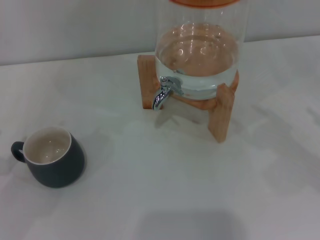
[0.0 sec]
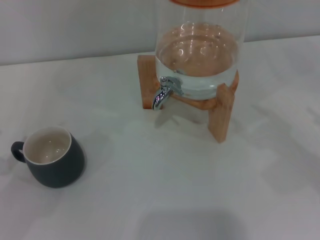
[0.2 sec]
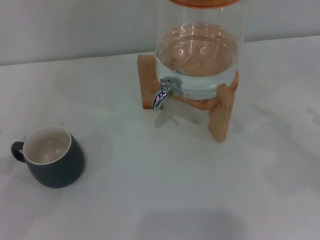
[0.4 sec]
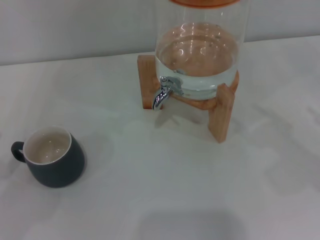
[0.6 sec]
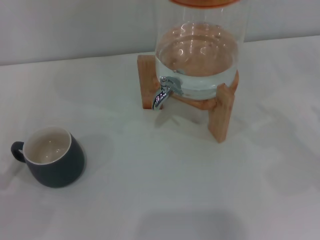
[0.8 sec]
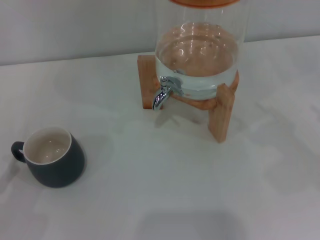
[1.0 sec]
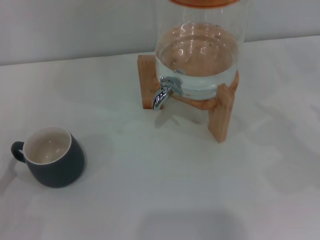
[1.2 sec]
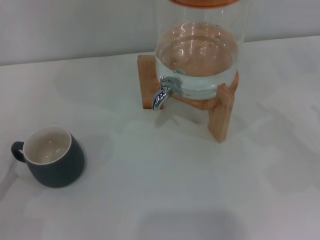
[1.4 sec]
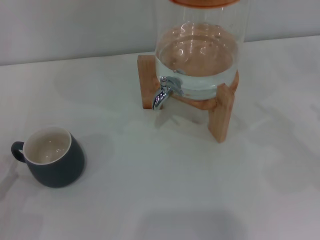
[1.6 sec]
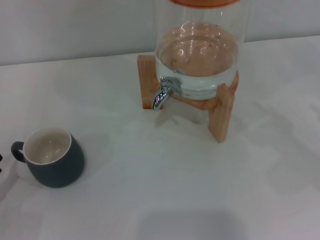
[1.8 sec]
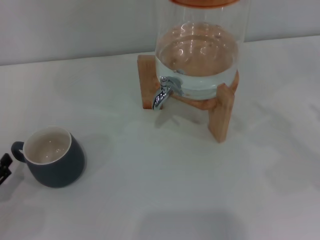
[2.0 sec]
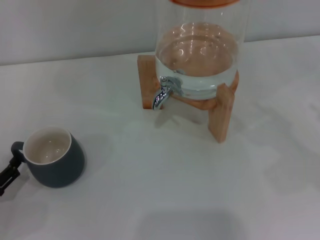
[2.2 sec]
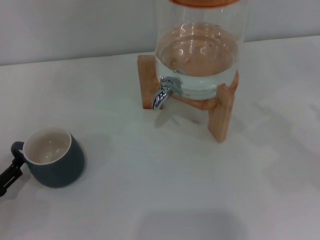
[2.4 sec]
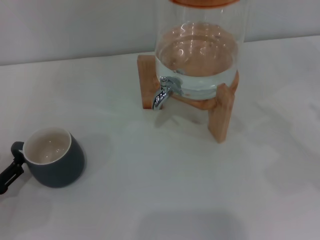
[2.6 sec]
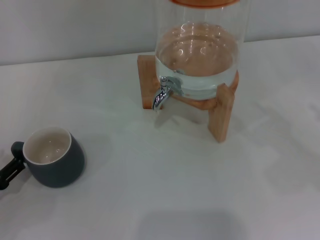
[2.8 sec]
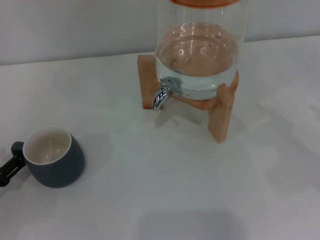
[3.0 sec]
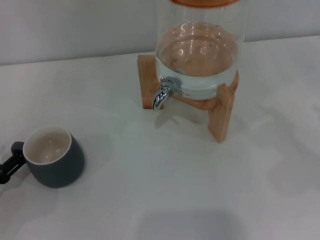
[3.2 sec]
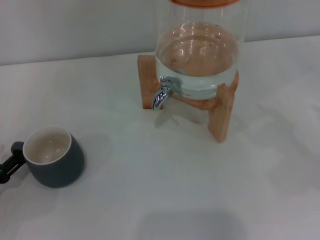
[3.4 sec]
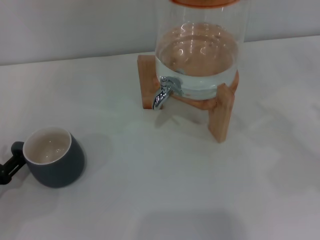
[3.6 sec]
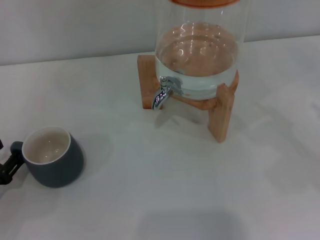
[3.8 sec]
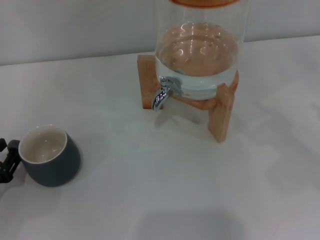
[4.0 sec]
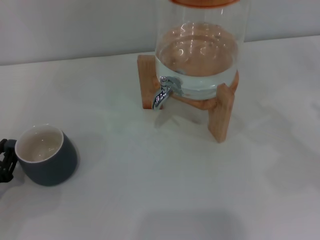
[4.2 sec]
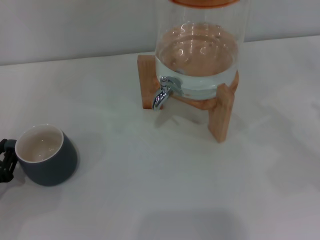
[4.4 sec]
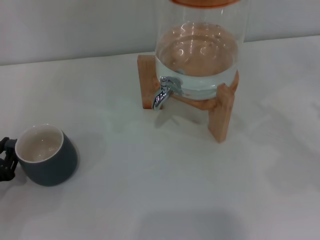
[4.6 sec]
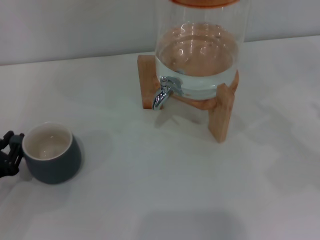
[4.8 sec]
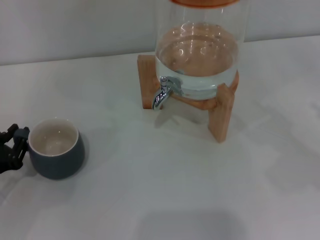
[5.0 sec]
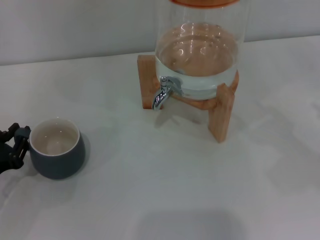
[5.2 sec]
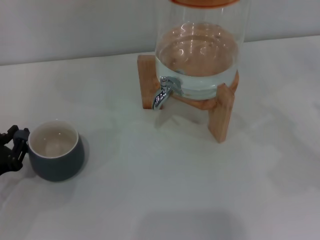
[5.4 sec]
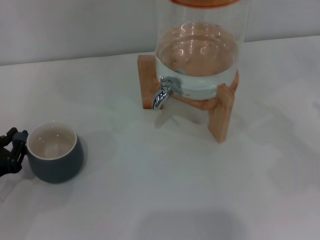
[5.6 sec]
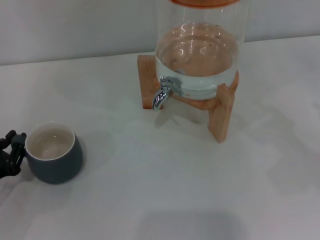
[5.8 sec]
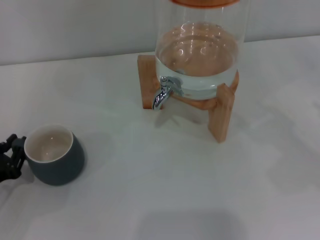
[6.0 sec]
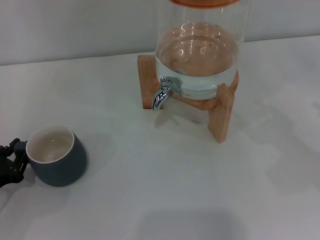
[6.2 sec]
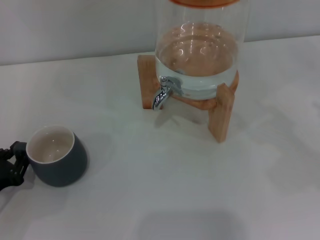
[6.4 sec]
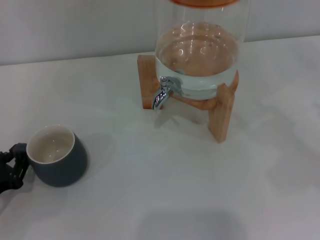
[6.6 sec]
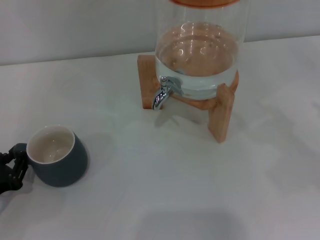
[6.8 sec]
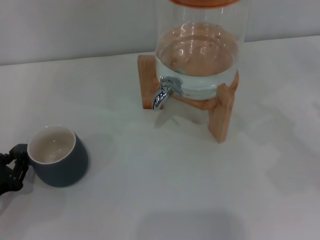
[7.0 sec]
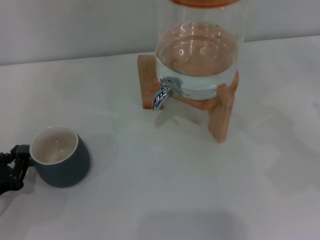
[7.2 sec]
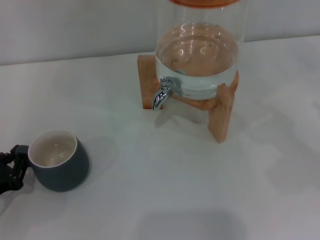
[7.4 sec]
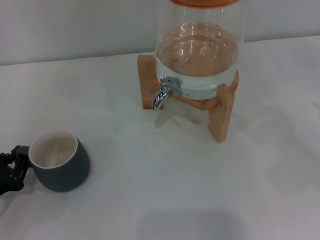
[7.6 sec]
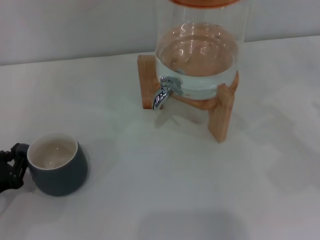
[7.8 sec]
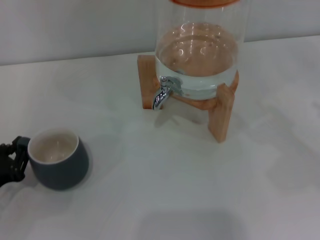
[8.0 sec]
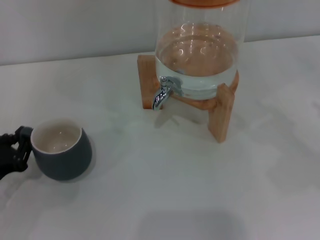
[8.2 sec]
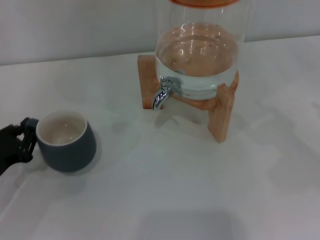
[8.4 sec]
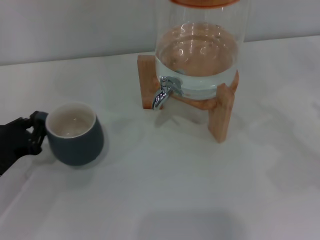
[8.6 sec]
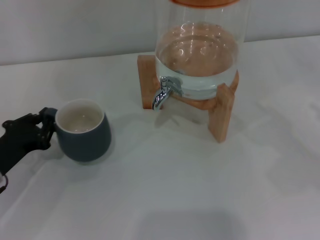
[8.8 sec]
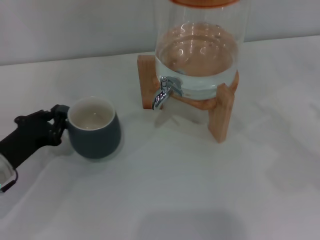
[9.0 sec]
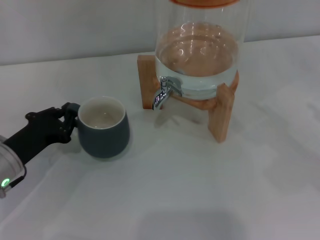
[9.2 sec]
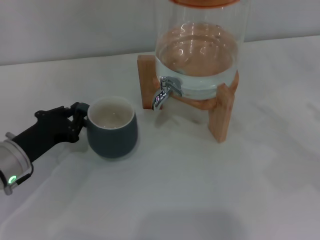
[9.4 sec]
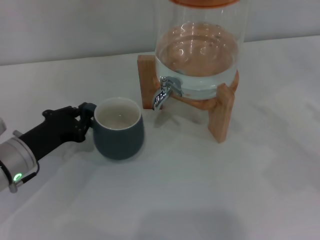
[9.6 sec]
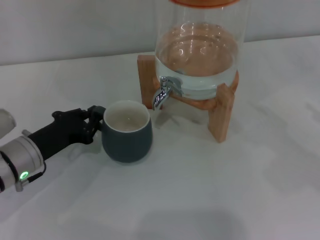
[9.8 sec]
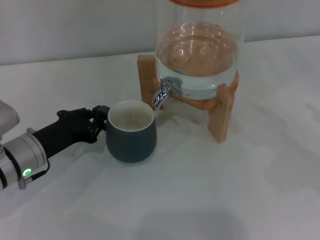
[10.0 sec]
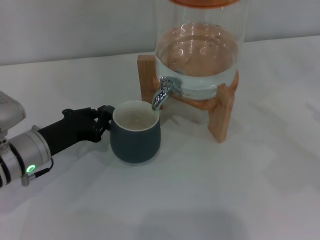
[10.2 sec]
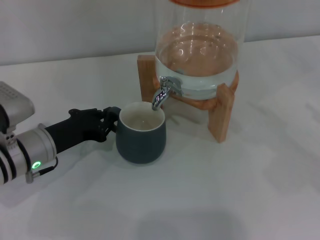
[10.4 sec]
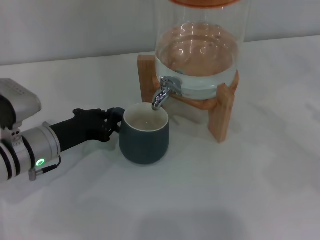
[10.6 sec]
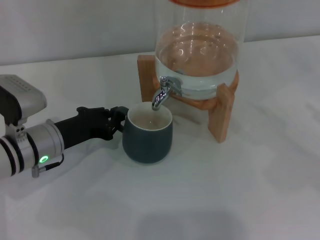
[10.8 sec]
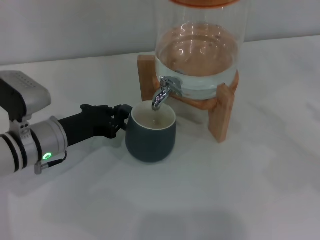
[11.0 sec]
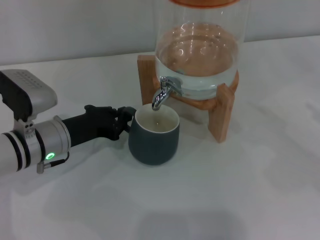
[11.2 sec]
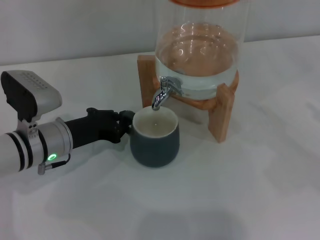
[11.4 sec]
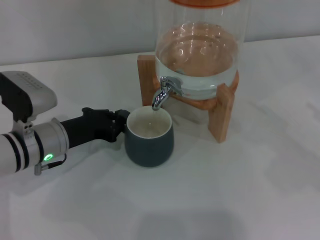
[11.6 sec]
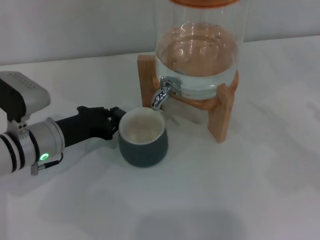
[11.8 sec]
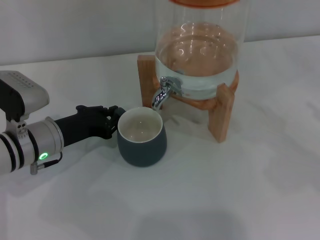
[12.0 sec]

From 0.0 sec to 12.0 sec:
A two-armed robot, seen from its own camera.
Task of the whole recording: the left gripper pick up the black cup and place it horizontally under the faucet, the right gripper turn on the faucet to fill the cup, and then turn off the faucet.
From 3.0 sec to 4.4 sec: The left gripper closes.
From 4.4 sec to 7.6 sec: The grippers move only a little.
From 7.6 sec to 9.0 sec: The left gripper heads forward and to the right, covering some 10 cm.
From 9.0 sec to 10.4 sec: The left gripper goes approximately 5 cm to the right.
From 10.4 sec to 12.0 sec: The grippers make only small movements.

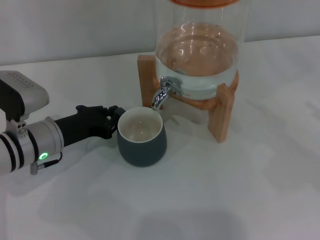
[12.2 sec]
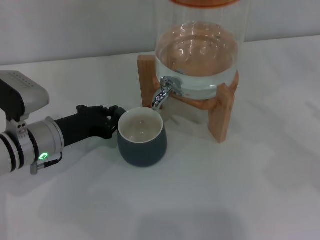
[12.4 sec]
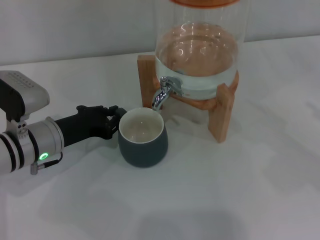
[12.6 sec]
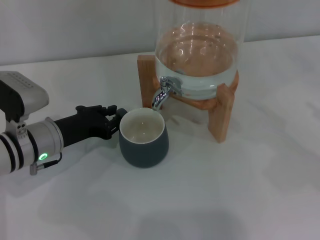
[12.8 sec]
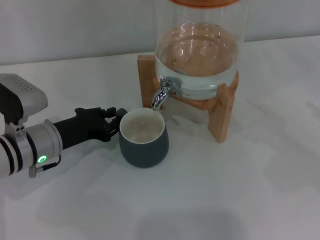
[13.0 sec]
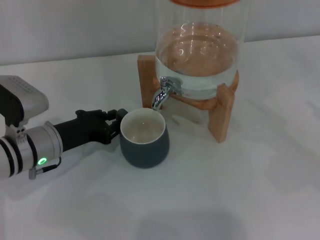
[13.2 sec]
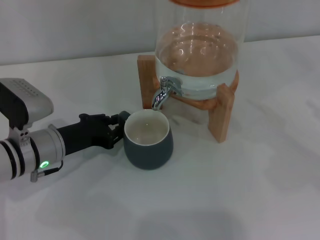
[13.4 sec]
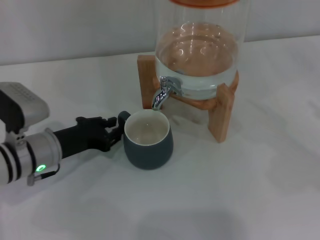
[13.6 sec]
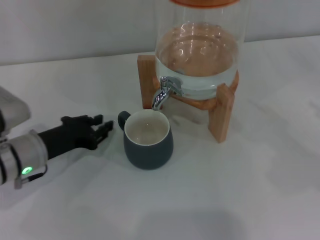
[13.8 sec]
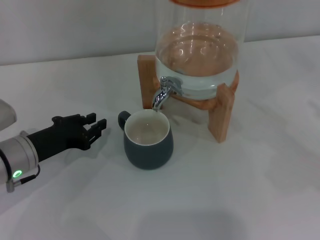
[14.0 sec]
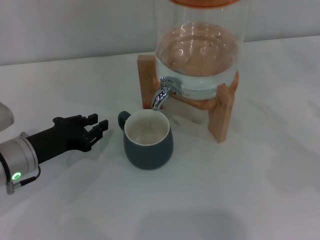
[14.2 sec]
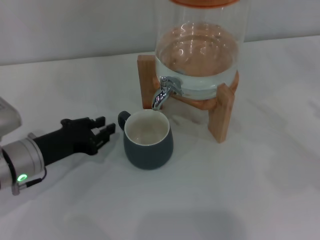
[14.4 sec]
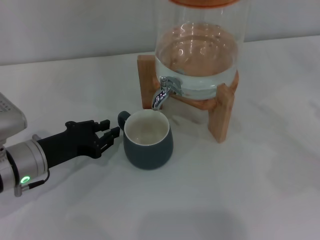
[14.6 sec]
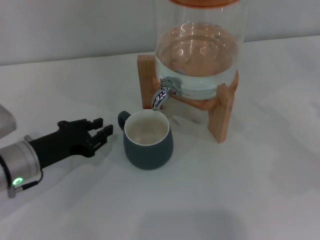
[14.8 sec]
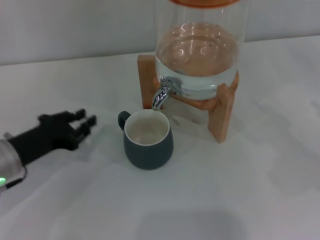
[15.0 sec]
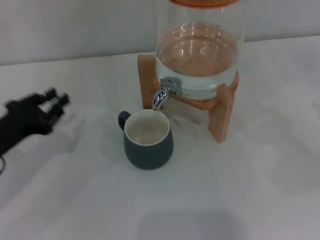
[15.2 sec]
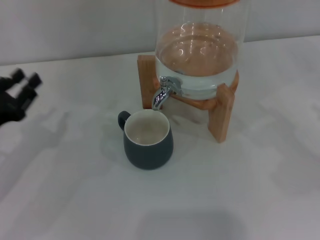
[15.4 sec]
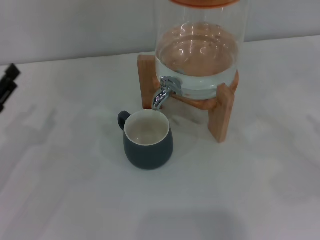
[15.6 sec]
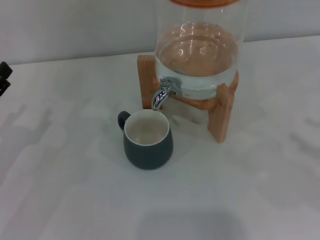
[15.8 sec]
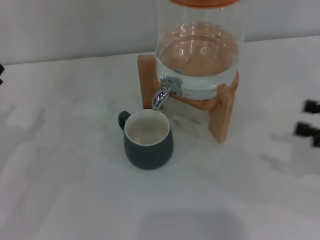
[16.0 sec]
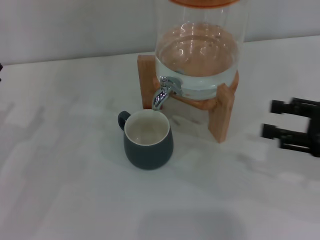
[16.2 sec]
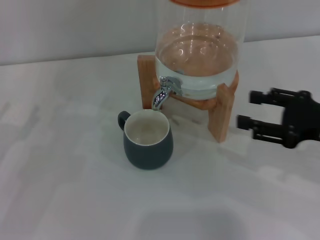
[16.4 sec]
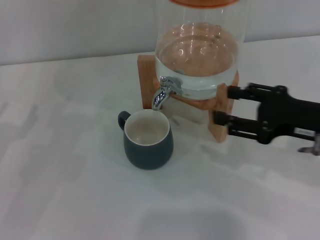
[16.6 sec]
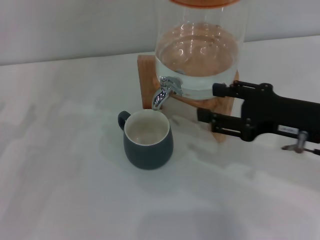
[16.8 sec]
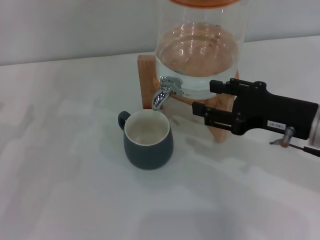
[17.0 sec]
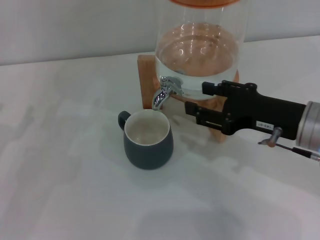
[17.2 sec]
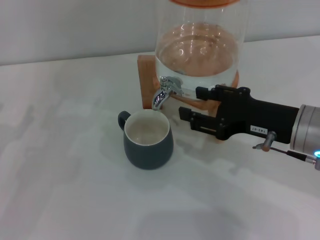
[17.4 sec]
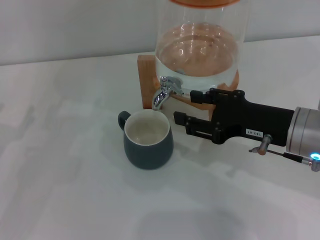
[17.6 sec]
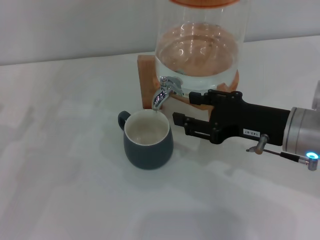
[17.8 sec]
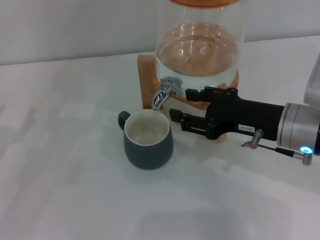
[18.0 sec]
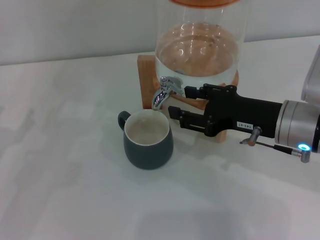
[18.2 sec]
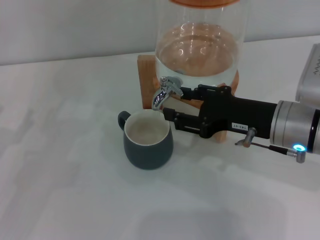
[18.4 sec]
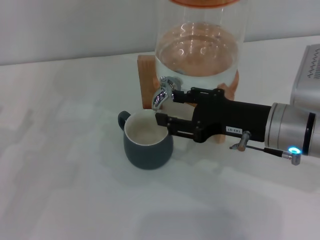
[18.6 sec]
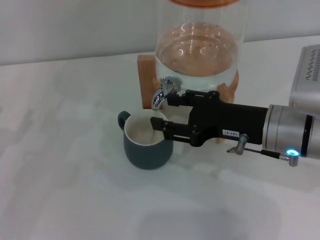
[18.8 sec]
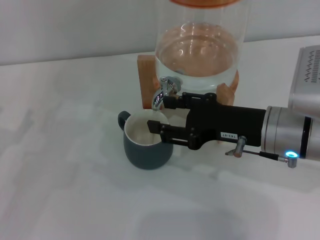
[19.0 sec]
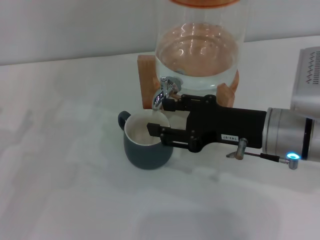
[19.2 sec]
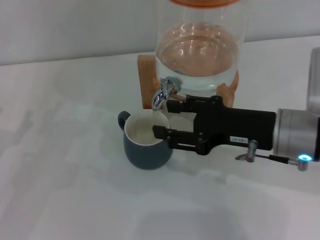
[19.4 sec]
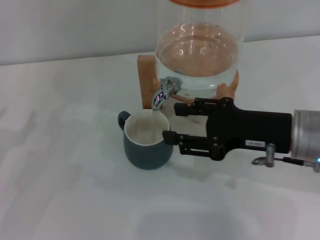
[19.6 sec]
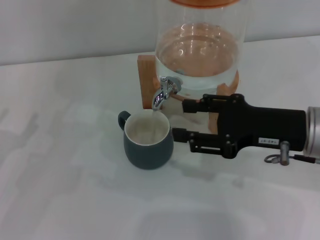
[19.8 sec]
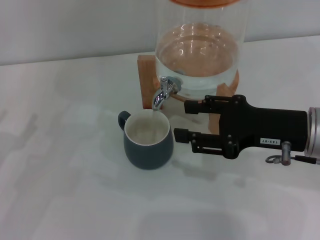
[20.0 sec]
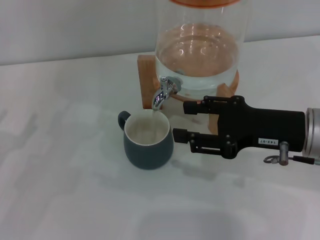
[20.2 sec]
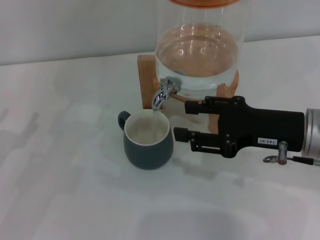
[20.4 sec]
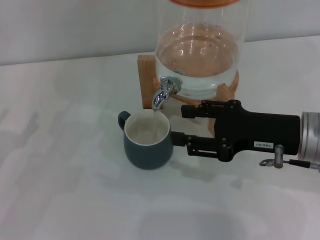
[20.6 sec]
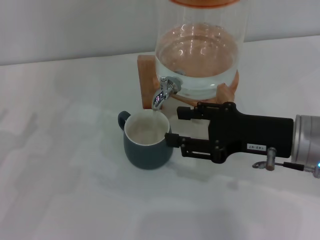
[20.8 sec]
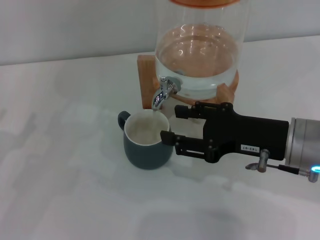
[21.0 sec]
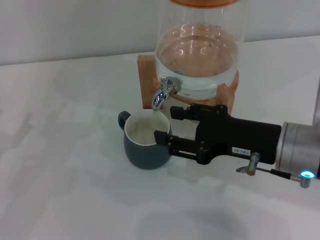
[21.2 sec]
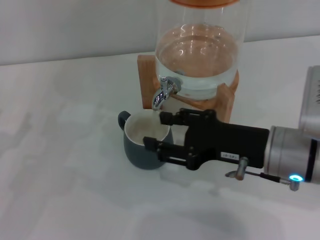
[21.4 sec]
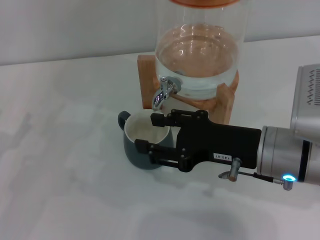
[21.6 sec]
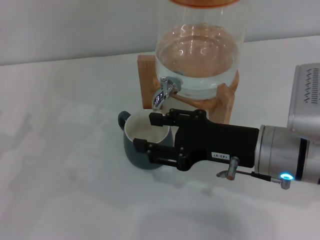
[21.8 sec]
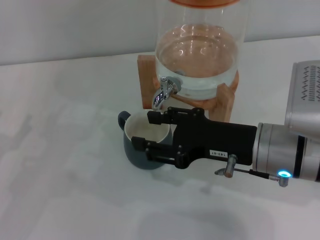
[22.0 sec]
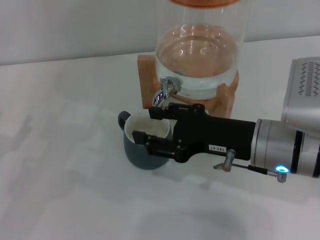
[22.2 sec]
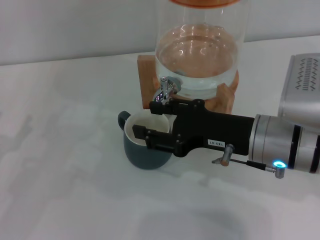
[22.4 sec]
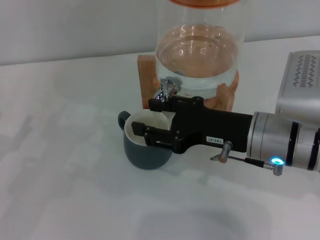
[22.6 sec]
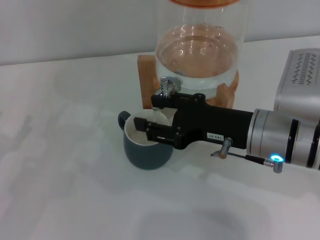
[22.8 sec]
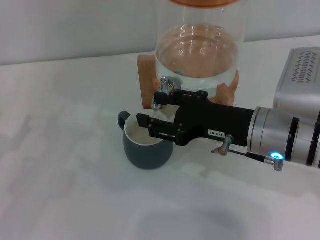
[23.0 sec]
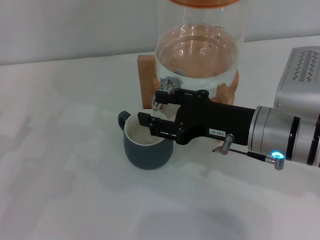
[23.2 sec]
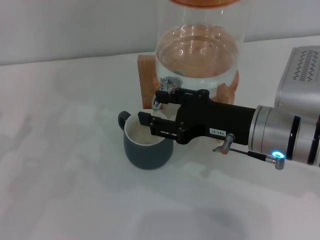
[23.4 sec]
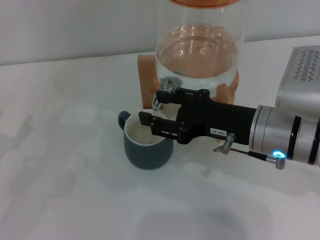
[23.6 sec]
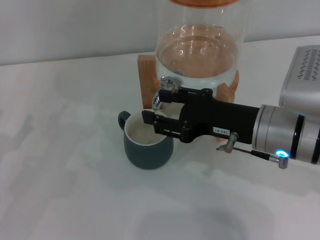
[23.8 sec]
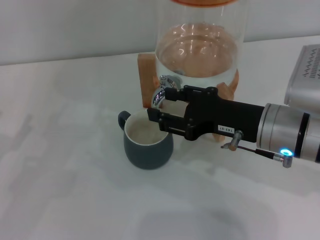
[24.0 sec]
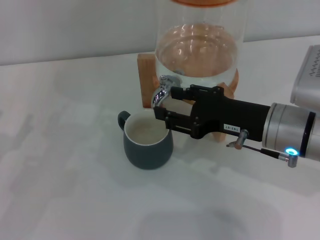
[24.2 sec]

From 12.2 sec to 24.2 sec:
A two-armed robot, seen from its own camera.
Task of the whole recording: the left gripper pick up the black cup and place it horizontally under the faucet, the right gripper turn on the faucet to fill the cup, and then turn off the faucet.
Step, from 12.2 sec to 14.8 sec: Move the cup beneath the water dispenser nozzle with the left gripper.
Step, from 15.0 sec to 22.4 sec: Open the dispenser valve and fill the cup with water with the right gripper.
From 12.2 sec to 13.8 sec: There are only small adjustments of the grippers.
From 13.8 sec to 15.2 sec: The left gripper moves to the left, about 5 cm.
From 15.2 sec to 16.6 sec: The left gripper is displaced to the left by approximately 5 cm, and opens its fingers; the right gripper heads to the left, covering some 15 cm.
From 16.6 sec to 18.2 sec: The right gripper is displaced to the left by some 5 cm.
From 18.2 sec to 24.2 sec: The grippers stay close to where they were, moving slightly.
